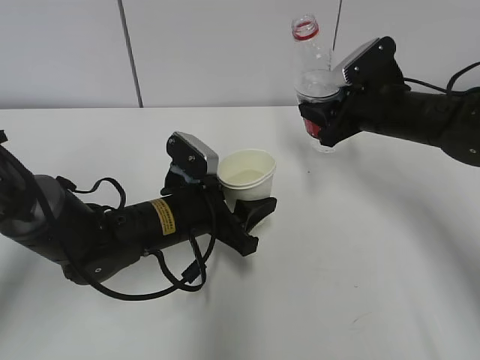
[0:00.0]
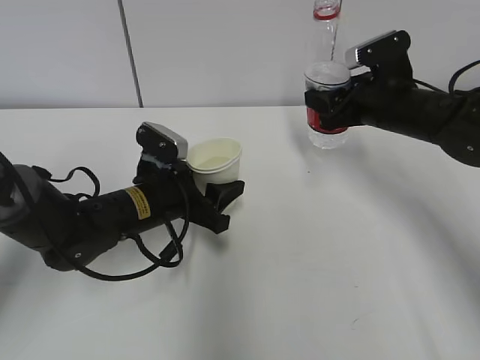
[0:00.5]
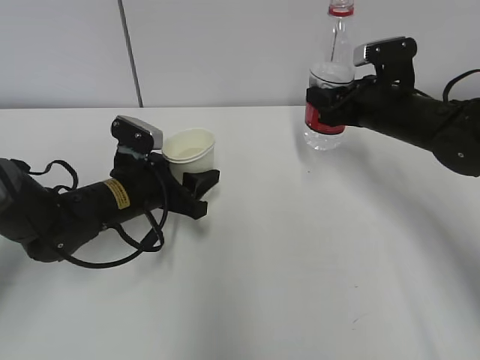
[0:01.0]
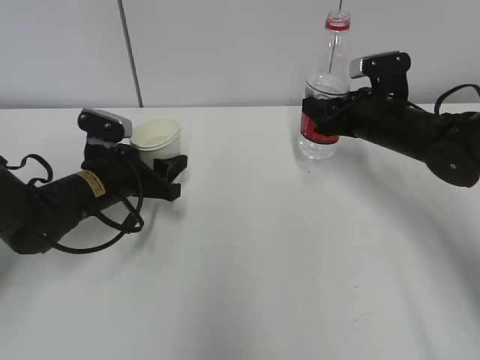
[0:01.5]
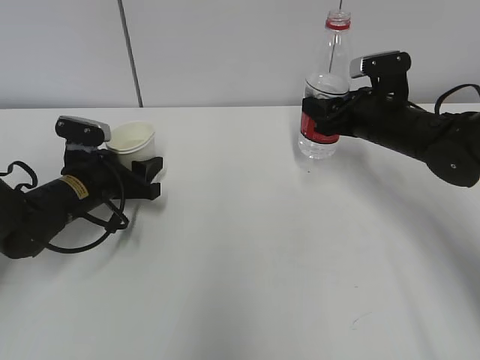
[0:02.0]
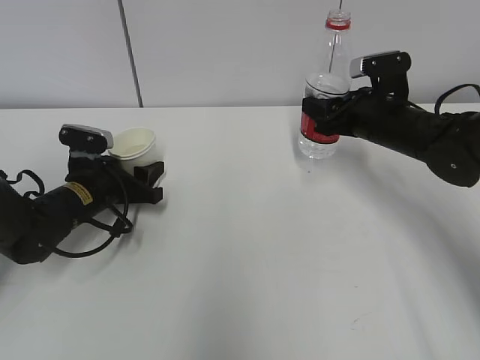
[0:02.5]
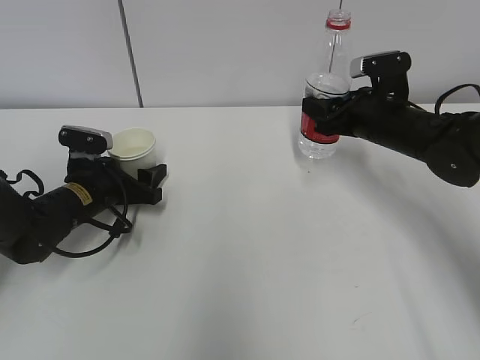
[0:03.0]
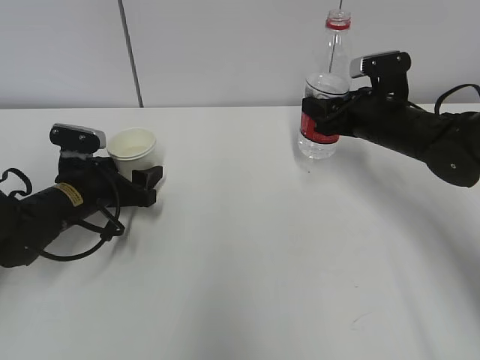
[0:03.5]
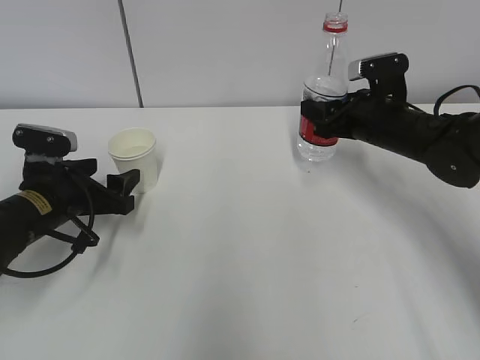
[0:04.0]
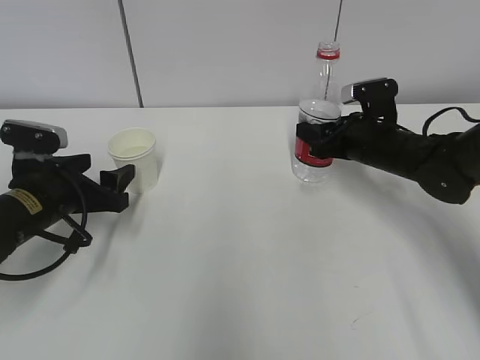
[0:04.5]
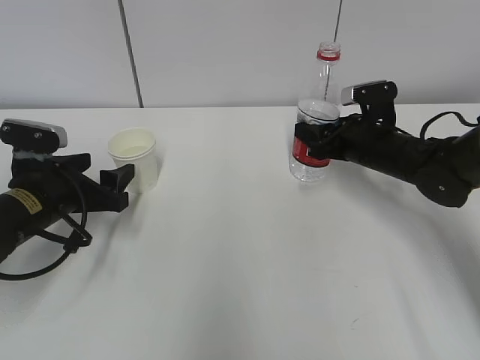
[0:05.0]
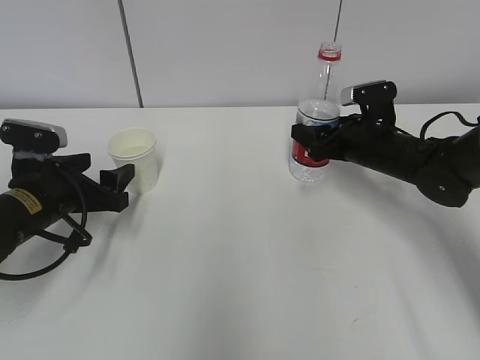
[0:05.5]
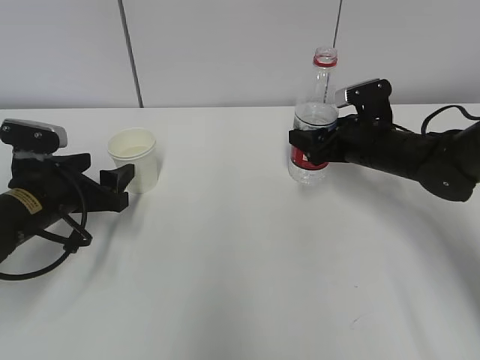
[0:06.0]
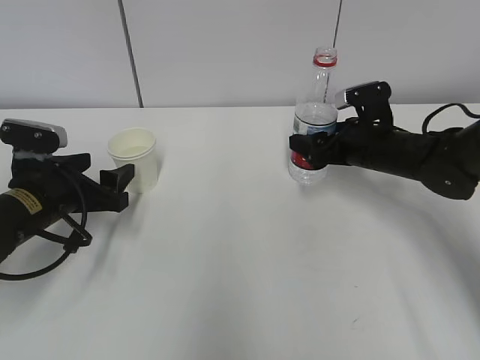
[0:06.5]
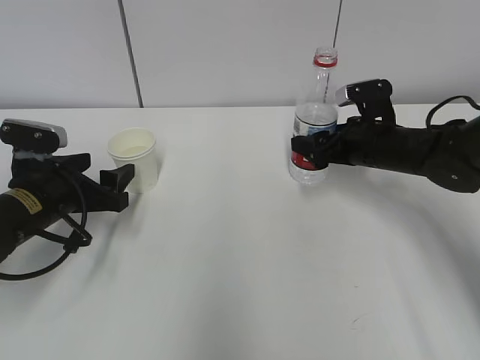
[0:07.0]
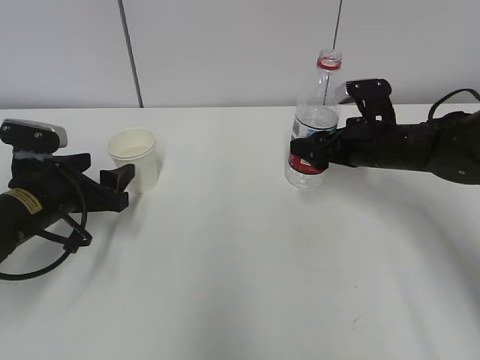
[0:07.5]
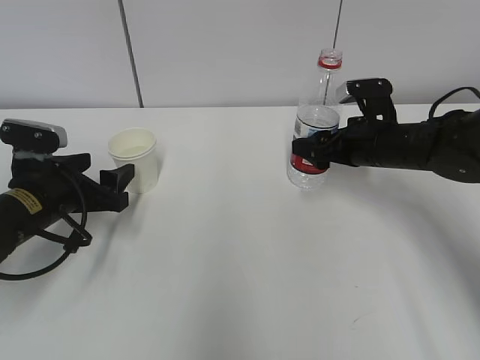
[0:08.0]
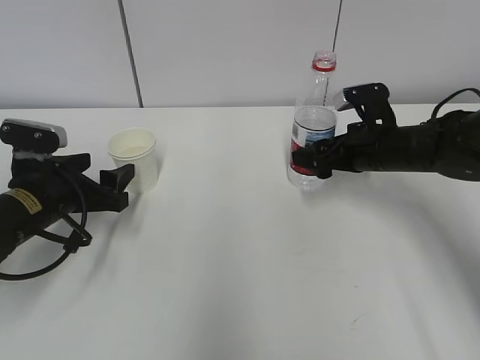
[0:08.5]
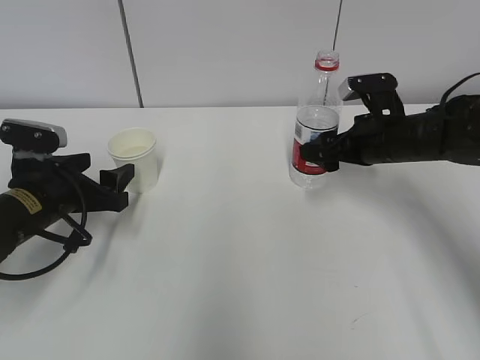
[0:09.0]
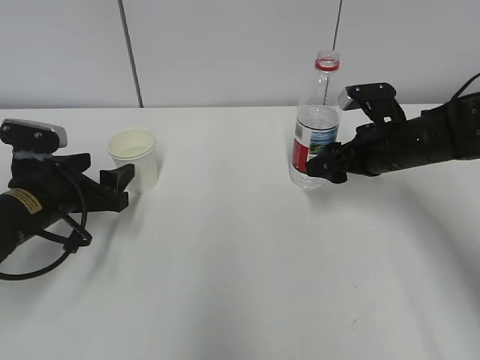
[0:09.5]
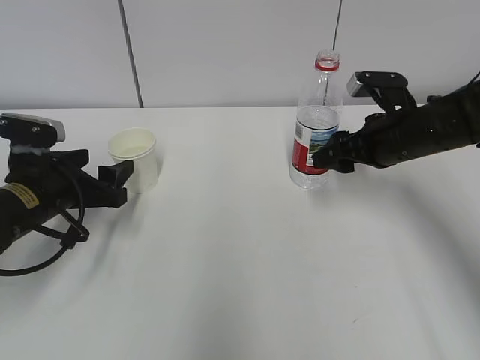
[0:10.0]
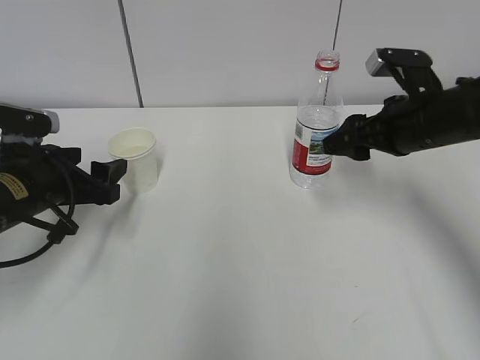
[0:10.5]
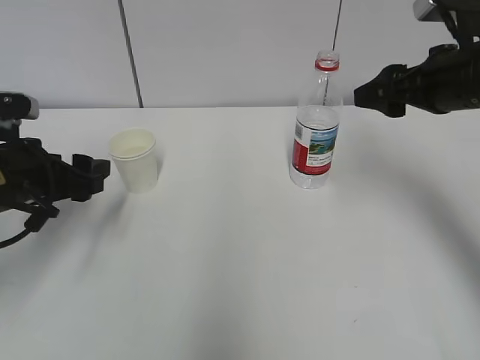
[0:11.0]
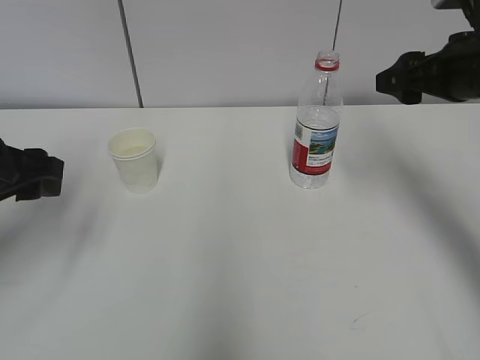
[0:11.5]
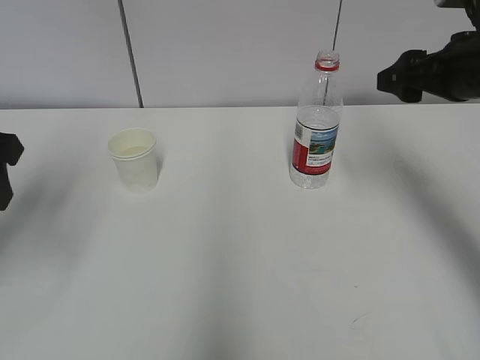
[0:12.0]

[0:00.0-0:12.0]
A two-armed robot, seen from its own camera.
Step, 0:00.0 to 0:03.0: Place the water bottle with the right hand.
0:00.0 to 0:02.0: The left gripper is displaced to the left and forward by roughly 15 cm.
0:02.0 to 0:04.0: The left gripper travels backward by about 5 cm, and opens its fingers.
0:04.0 to 0:06.0: The right gripper opens up.
0:06.0 to 0:08.0: The grippers move only a little.
0:08.0 to 0:10.0: The grippers move only a little.
0:10.0 to 0:12.0: The right gripper is displaced upward by some 10 cm; the left gripper heads upward, covering about 15 cm.

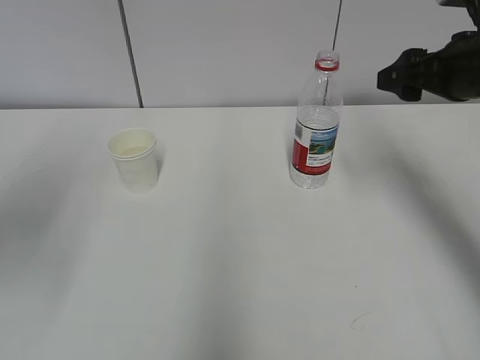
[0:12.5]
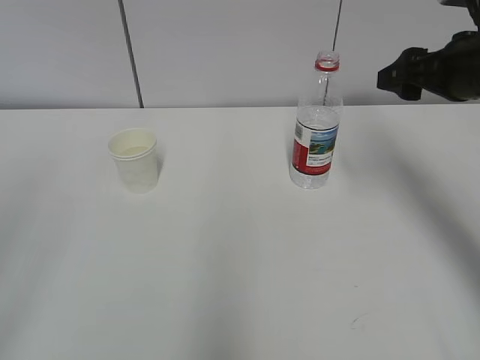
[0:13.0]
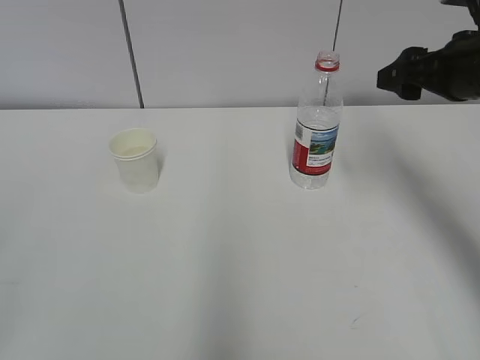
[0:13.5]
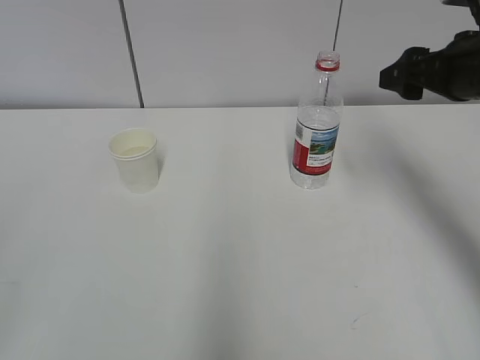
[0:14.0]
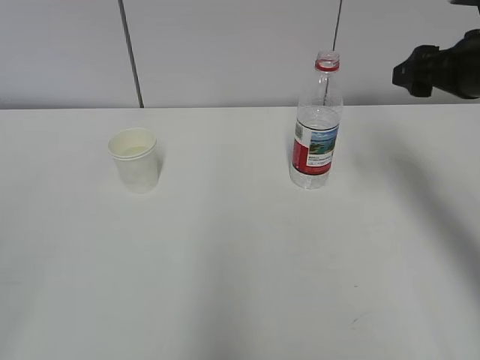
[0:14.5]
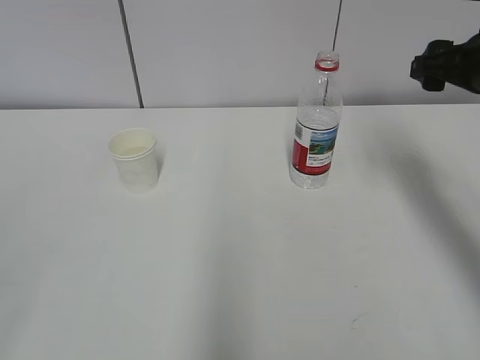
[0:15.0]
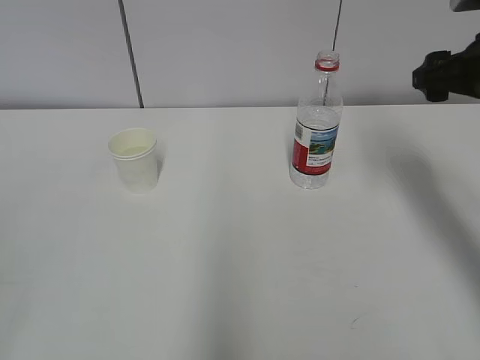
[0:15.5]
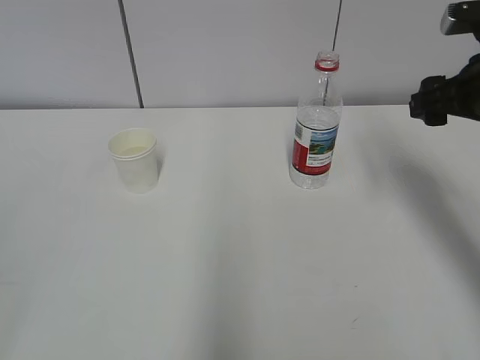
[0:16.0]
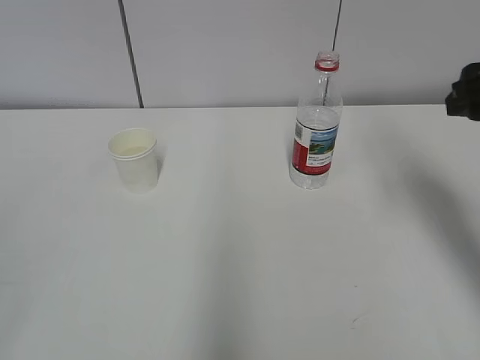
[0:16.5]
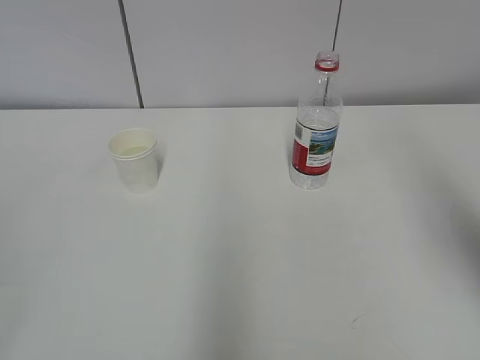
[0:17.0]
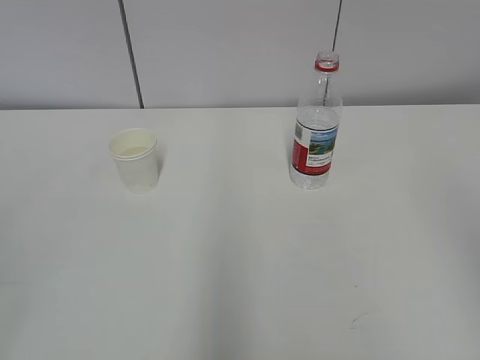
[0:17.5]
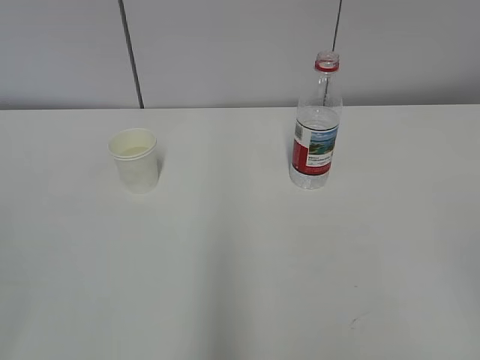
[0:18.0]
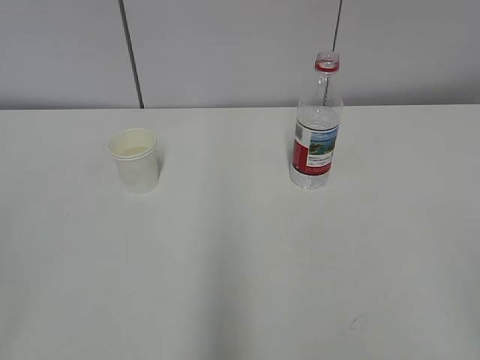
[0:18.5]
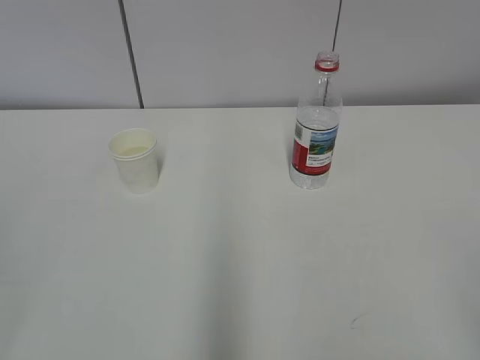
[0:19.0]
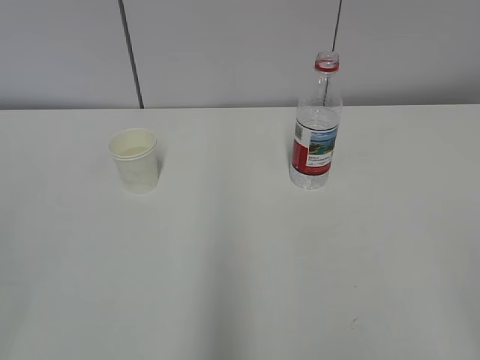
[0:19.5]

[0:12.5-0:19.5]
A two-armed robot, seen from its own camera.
0:12.5 to 0:14.5: The left gripper is displaced backward by roughly 20 cm.
0:14.5 to 0:16.0: The grippers stay close to where they were, moving slightly.
0:16.0 to 0:17.5: The right gripper is displaced backward and upward by about 35 cm.

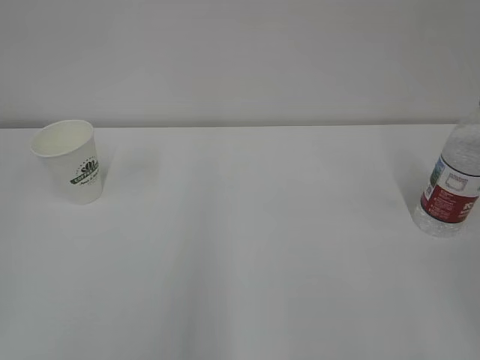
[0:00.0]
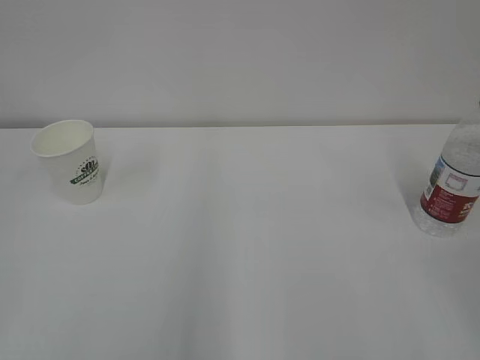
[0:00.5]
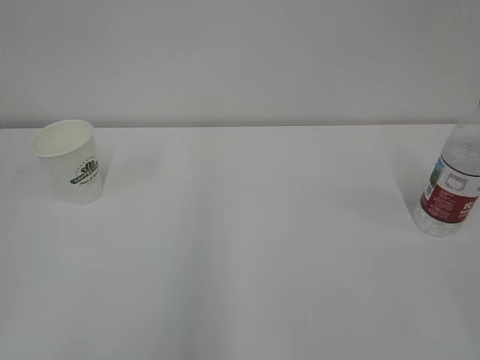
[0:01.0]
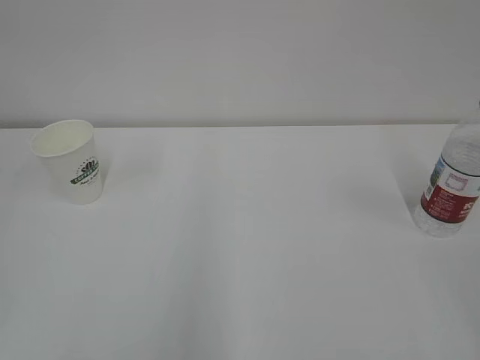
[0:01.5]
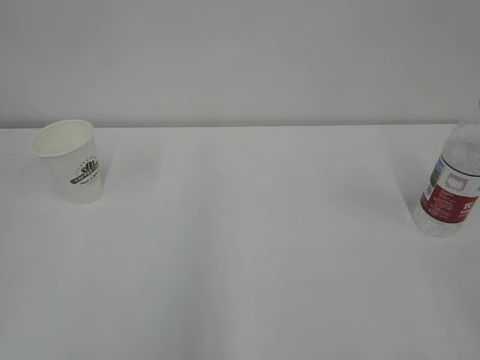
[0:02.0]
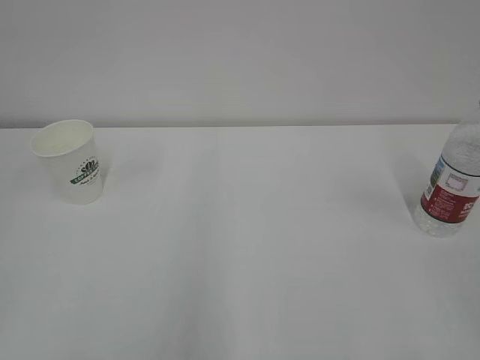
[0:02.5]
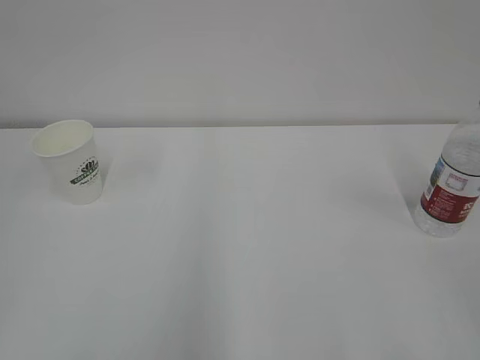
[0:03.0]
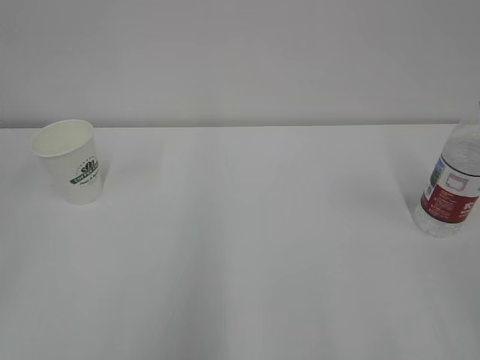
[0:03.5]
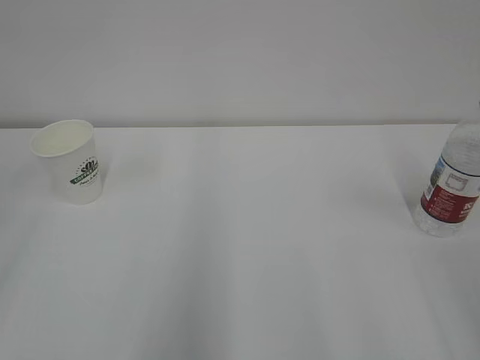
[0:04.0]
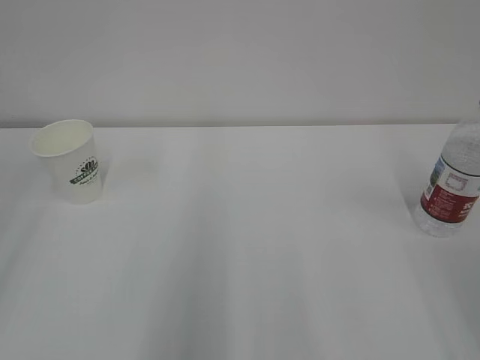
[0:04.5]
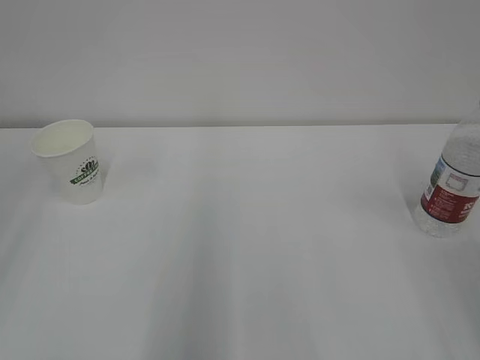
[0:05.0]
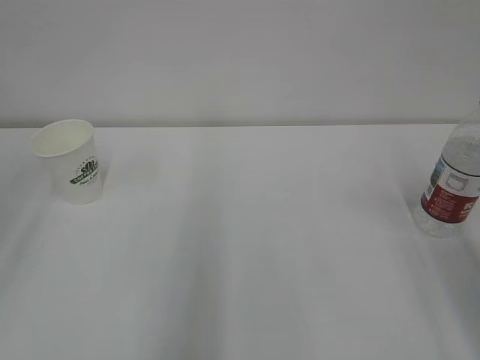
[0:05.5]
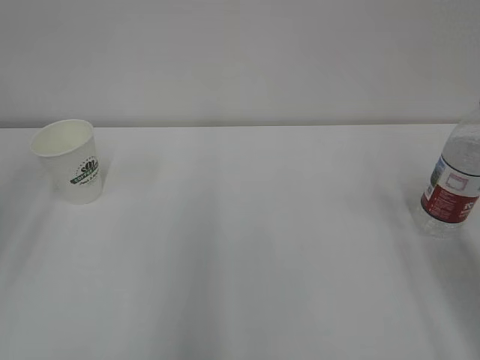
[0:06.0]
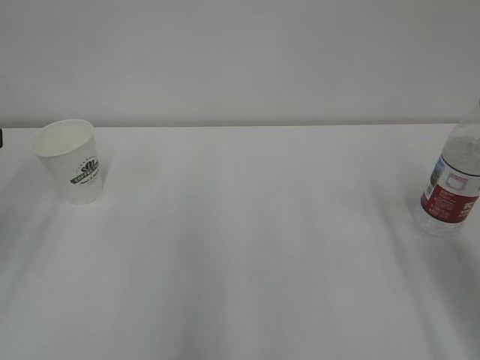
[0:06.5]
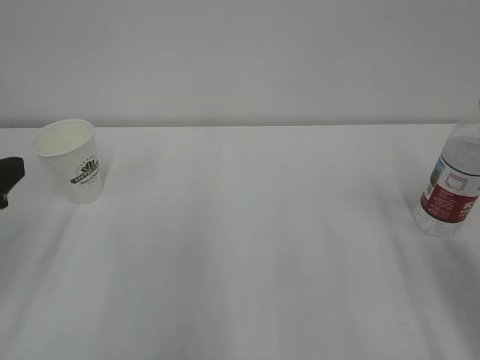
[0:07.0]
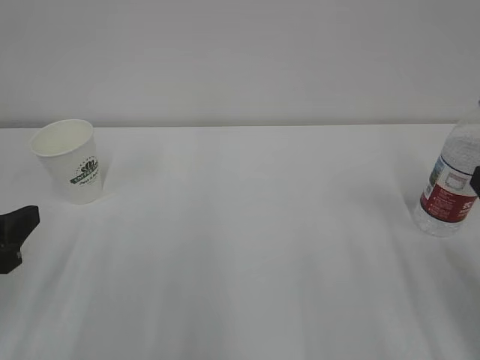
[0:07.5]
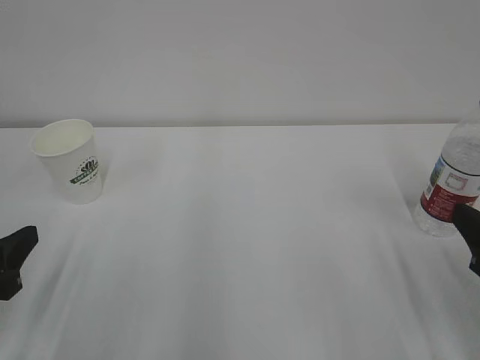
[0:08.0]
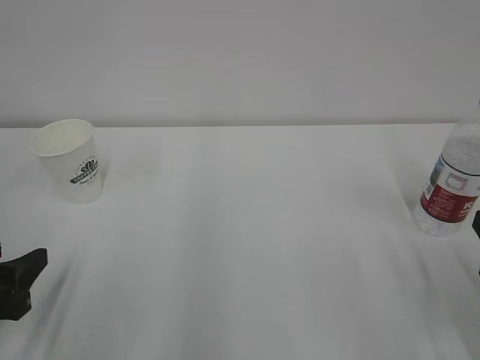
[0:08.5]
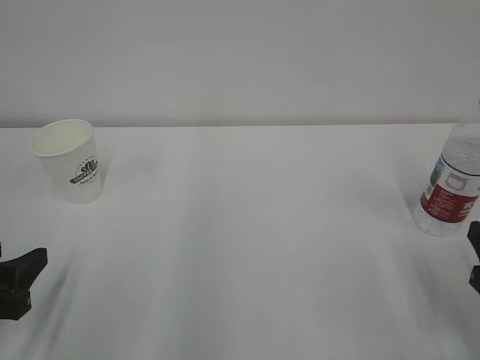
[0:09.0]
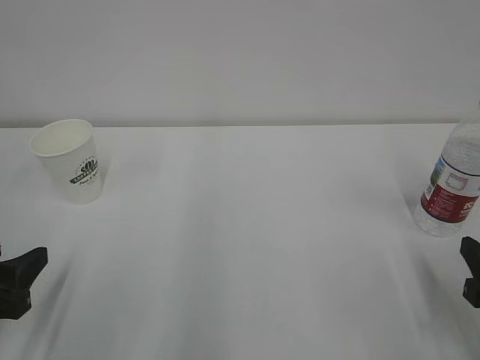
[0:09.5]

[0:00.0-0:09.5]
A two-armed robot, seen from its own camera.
0:05.5 to 0:07.5: The left gripper is displaced downward by roughly 15 cm.
0:07.5 to 0:09.5: The right gripper heads downward, covering about 10 cm.
